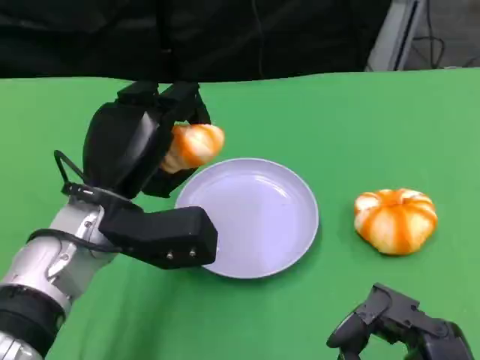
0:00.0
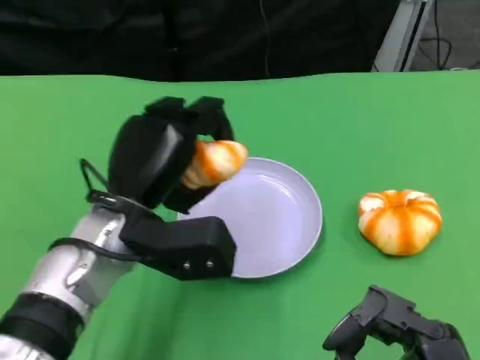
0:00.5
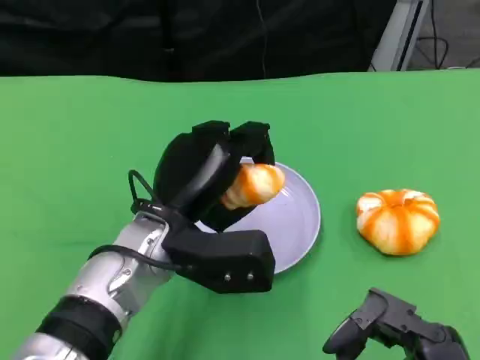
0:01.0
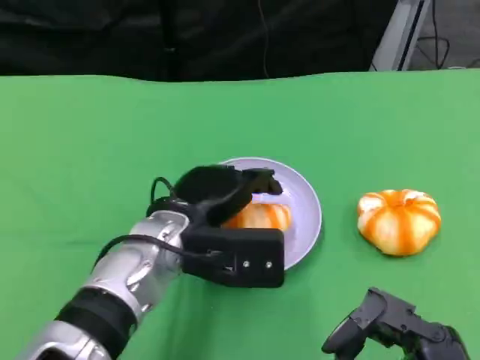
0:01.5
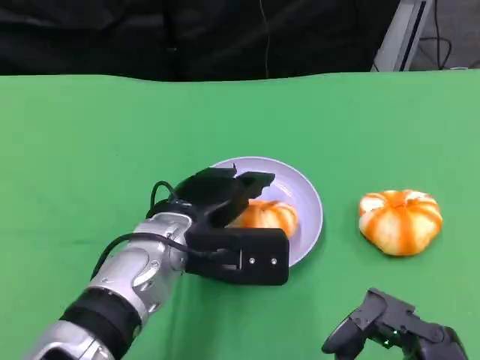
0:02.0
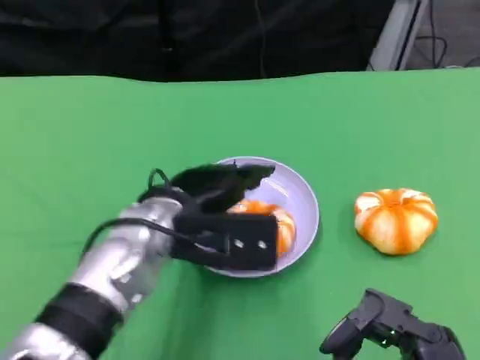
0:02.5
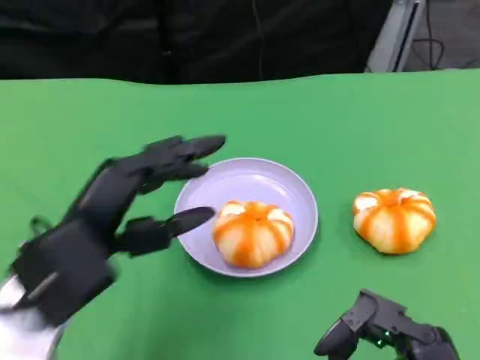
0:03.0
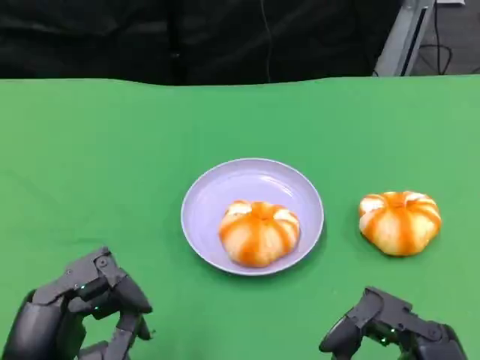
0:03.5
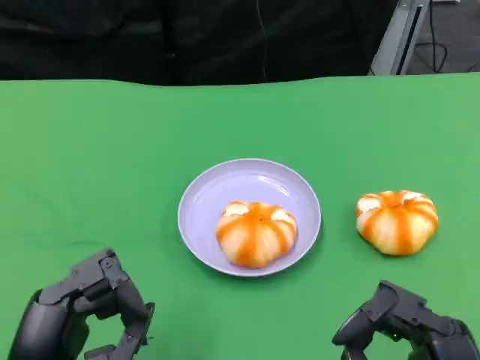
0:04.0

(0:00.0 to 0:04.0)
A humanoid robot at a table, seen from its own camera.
Task of the whole recording: Grasp the bread from the table and place it into the plate.
0:00.0 - 0:02.0: The left hand moves to the right, roughly 5 cm.
0:02.0 - 0:04.0: The left hand shifts roughly 20 cm backward and to the left.

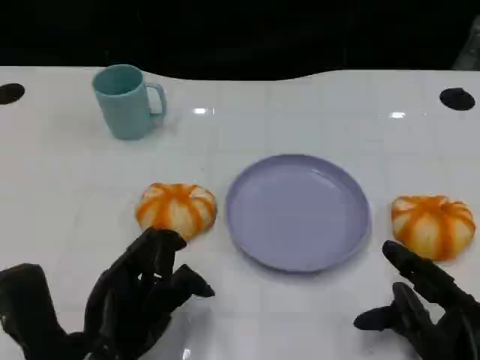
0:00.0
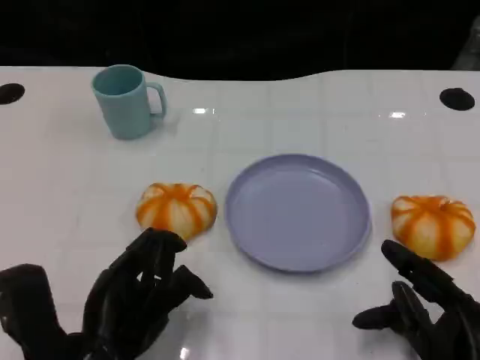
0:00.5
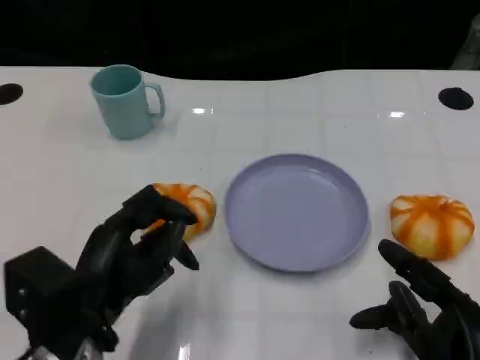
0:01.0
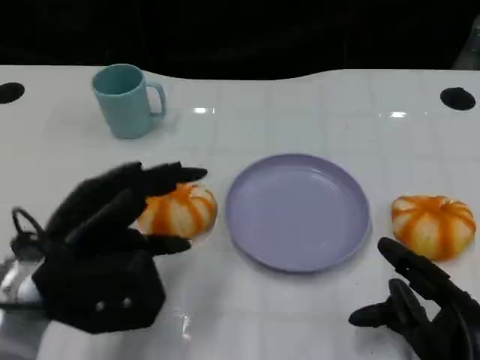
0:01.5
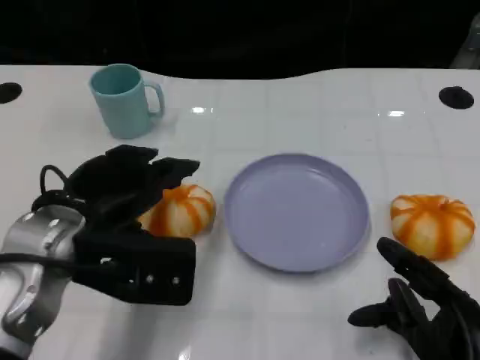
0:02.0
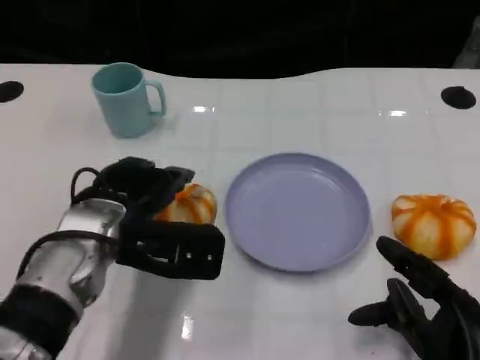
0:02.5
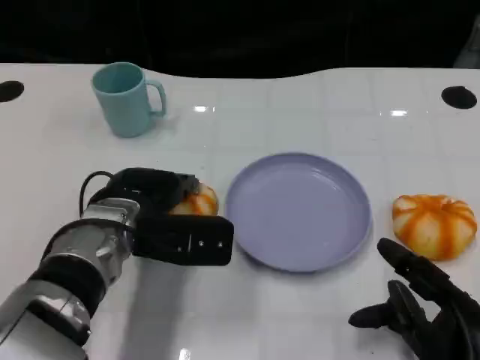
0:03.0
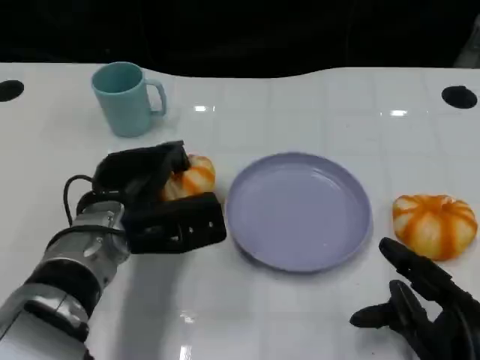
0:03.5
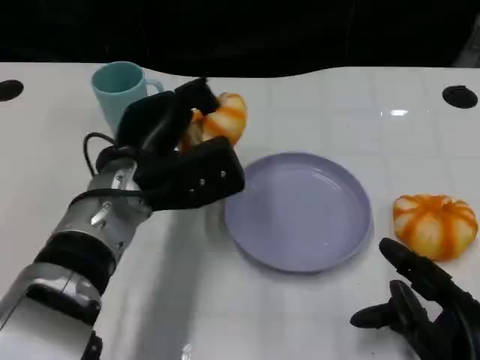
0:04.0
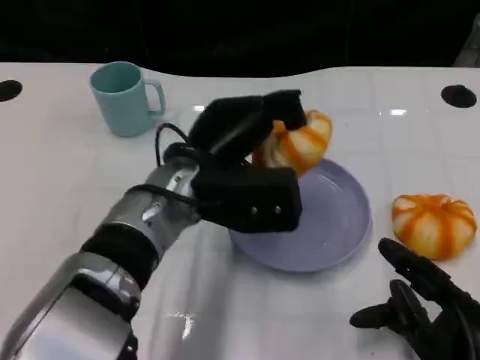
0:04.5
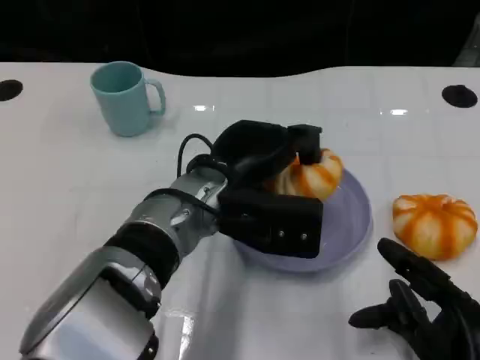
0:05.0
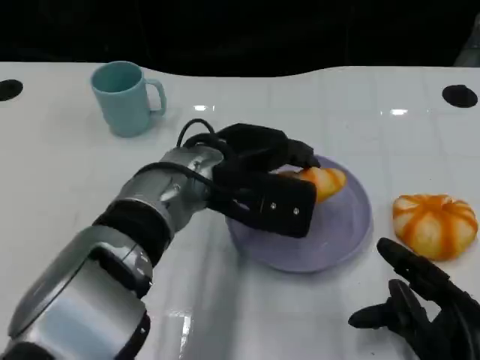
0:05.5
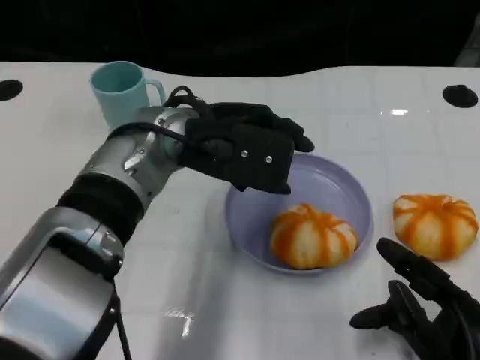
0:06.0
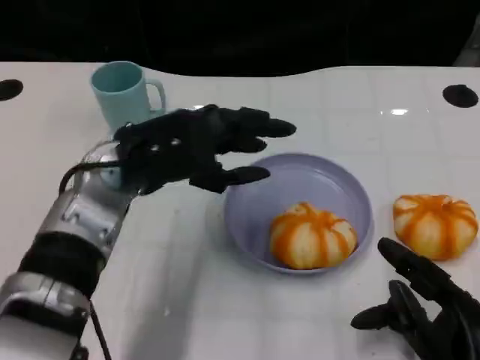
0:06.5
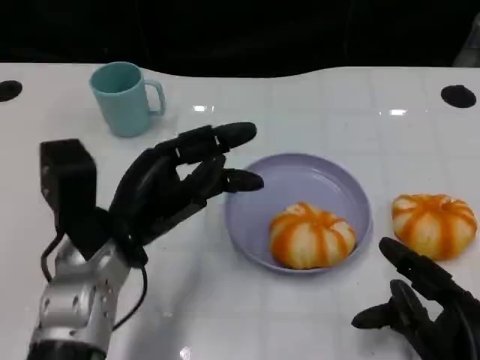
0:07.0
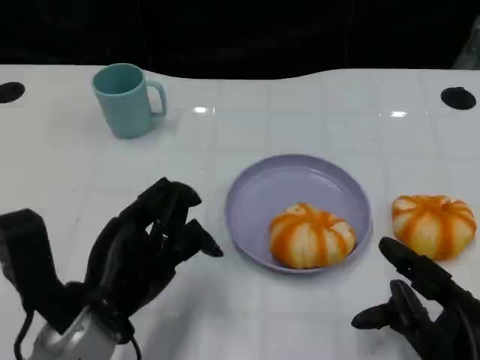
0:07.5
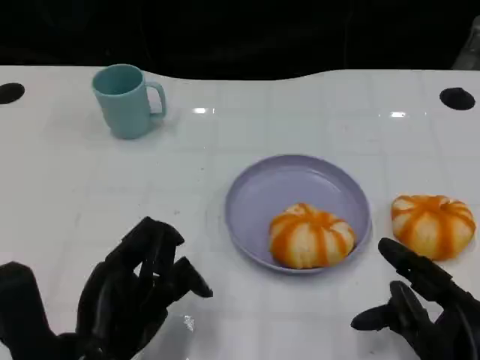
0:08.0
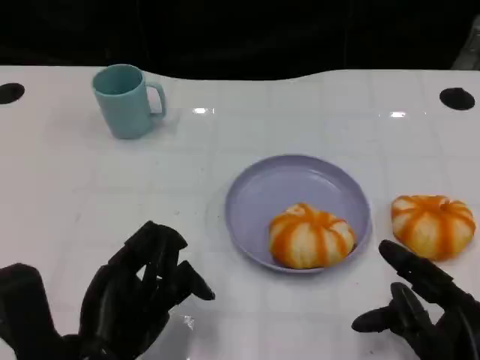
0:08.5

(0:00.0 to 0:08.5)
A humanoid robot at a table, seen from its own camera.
Task of the whole recording: Grasp the bread from the table and place it into the plate.
0:00.0 - 0:02.0: The left hand travels forward and upward by approximately 10 cm.
0:02.0 - 0:04.0: The left hand is displaced forward and to the right by approximately 10 cm.
0:04.0 - 0:06.5: The left hand moves about 5 cm to the right and comes back.
0:06.5 - 0:08.5: The left hand travels backward and downward by approximately 15 cm.

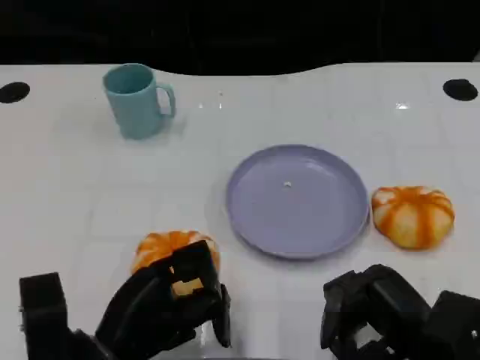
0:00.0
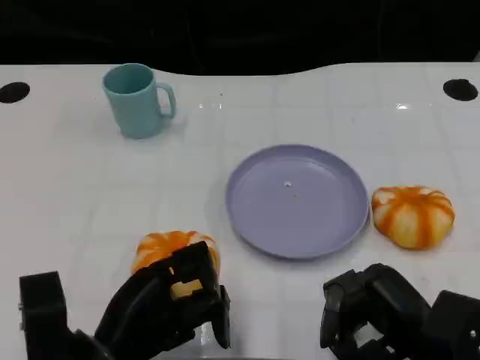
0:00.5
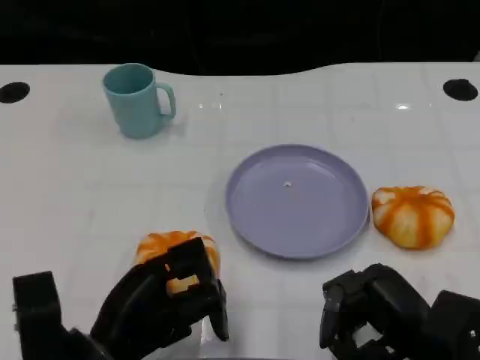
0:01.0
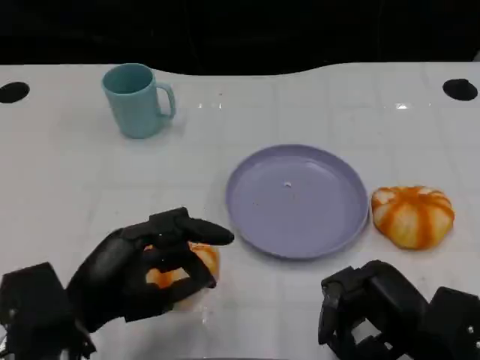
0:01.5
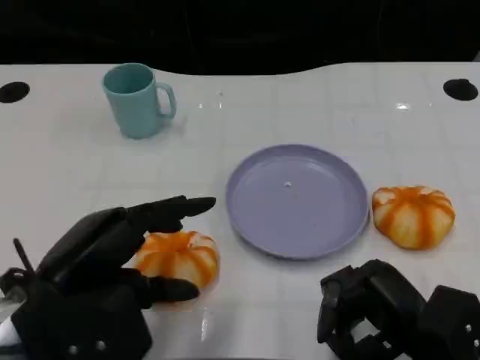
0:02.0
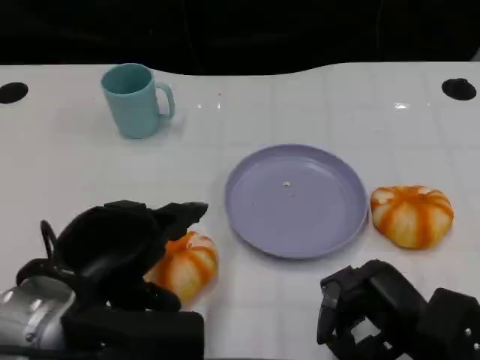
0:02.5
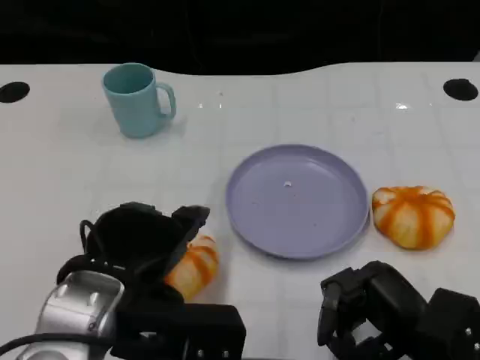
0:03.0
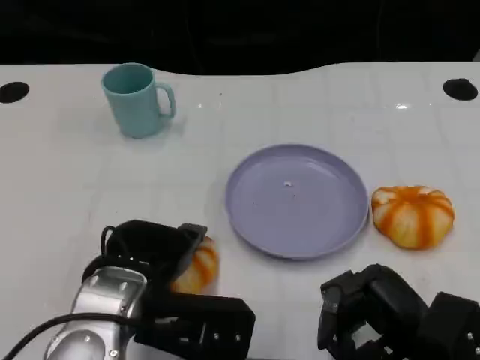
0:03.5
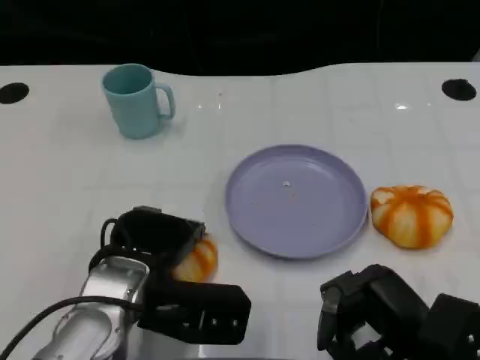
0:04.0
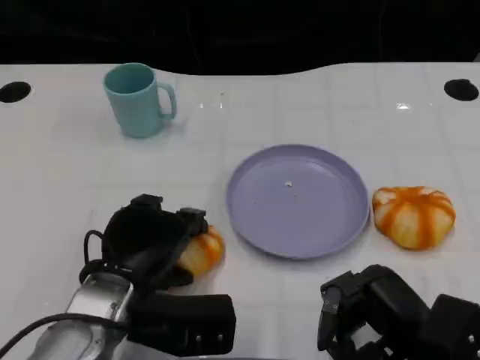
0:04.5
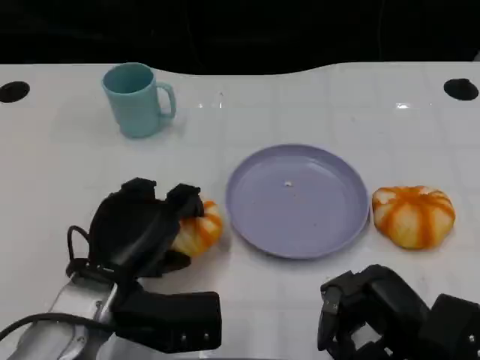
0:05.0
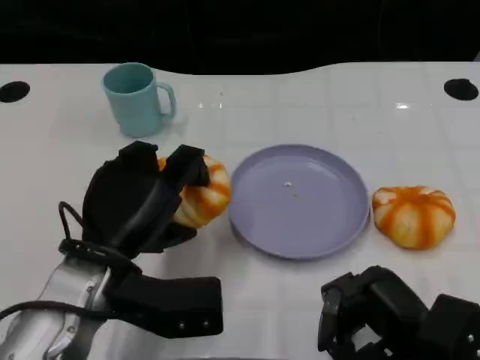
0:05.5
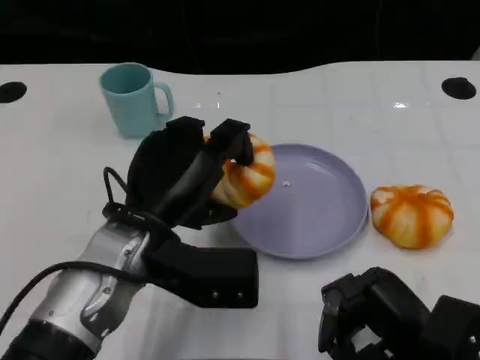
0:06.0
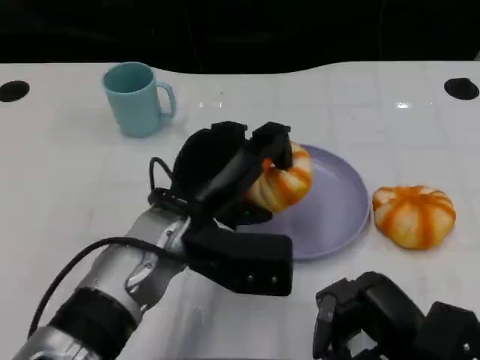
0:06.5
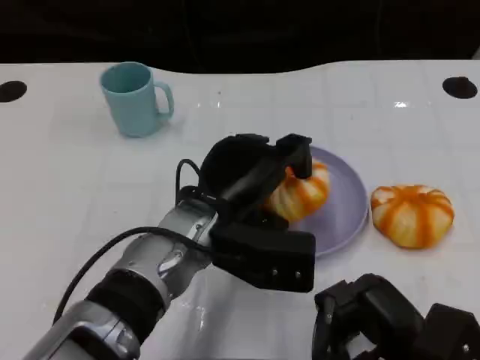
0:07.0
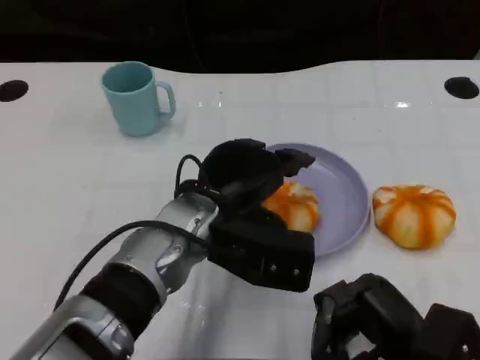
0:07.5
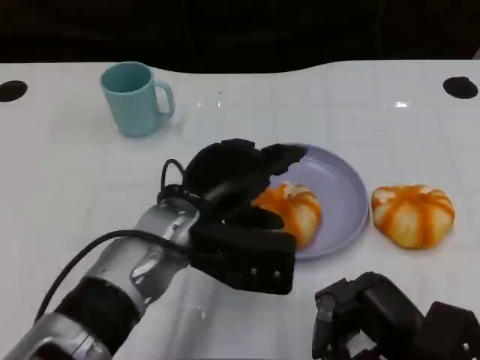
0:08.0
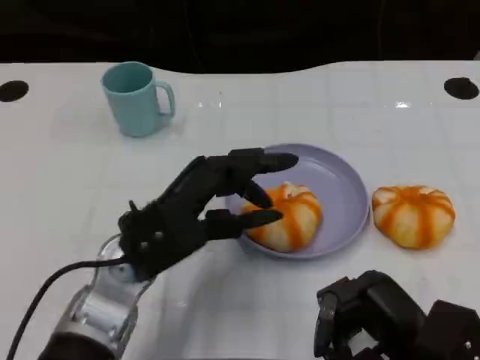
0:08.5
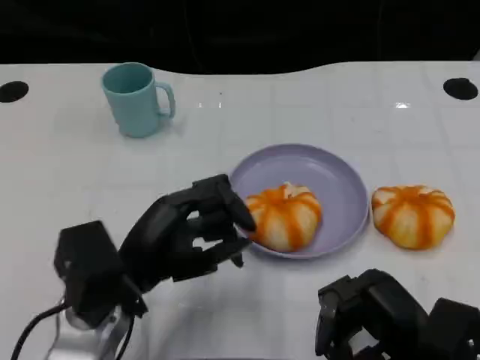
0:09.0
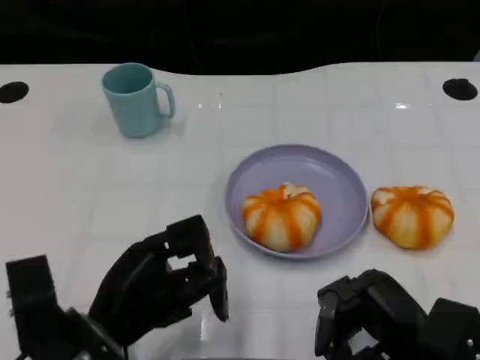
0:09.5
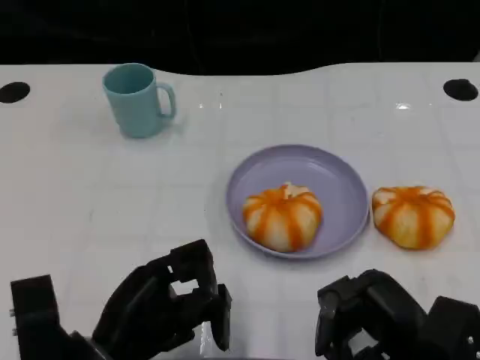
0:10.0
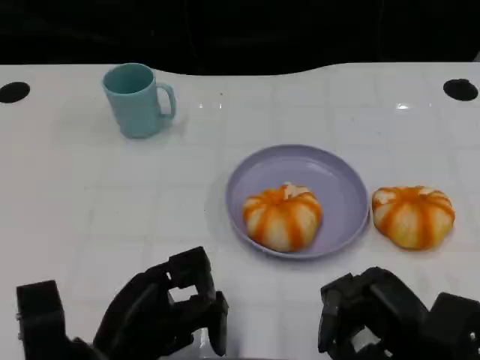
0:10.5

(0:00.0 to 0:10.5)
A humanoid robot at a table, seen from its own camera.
Task of the whole recording: Grasp the bread from the table and place it into the plate.
0:00.0 - 0:02.0: The left hand travels upward by some 10 cm.
0:02.0 - 0:04.0: The left hand goes about 10 cm to the right, downward and forward.
0:04.0 - 0:06.5: The left hand travels to the right by approximately 5 cm.
0:08.5 - 0:10.5: The left hand shifts some 10 cm backward, downward and to the left.

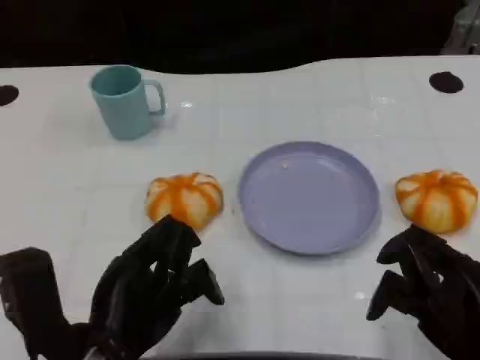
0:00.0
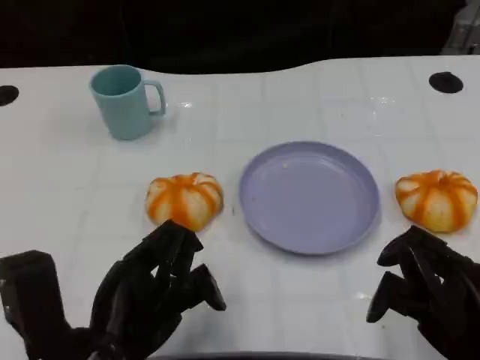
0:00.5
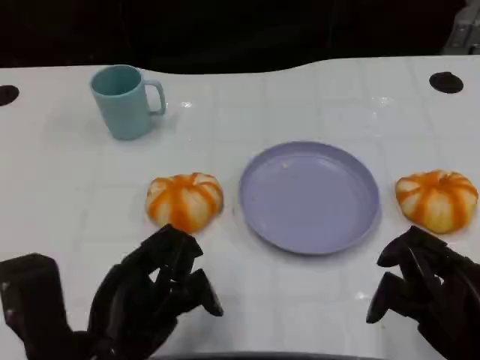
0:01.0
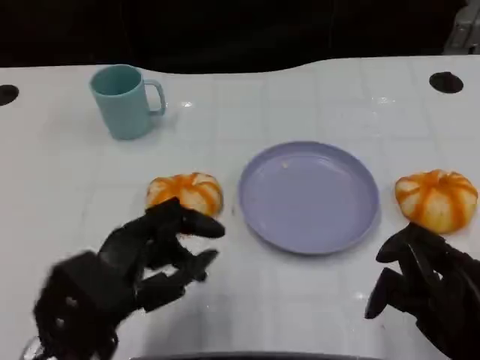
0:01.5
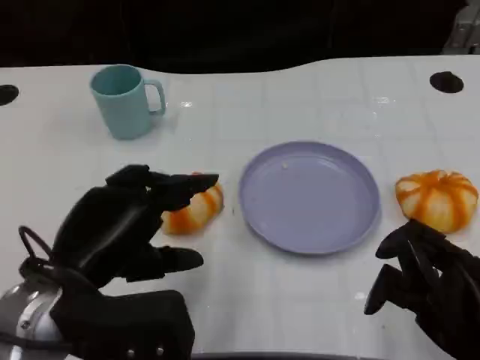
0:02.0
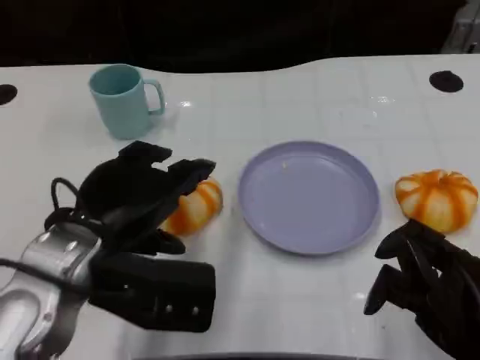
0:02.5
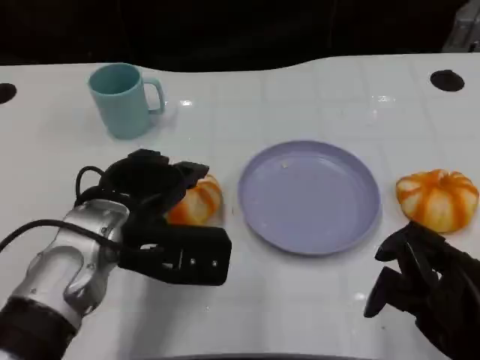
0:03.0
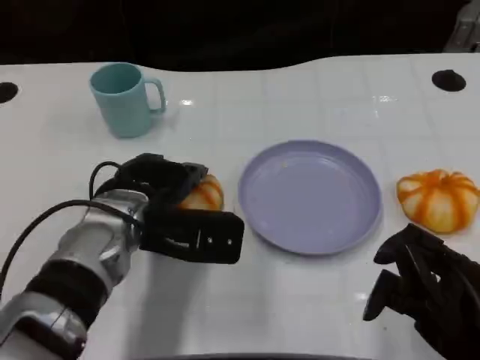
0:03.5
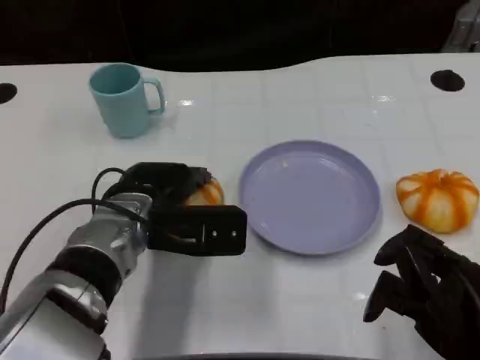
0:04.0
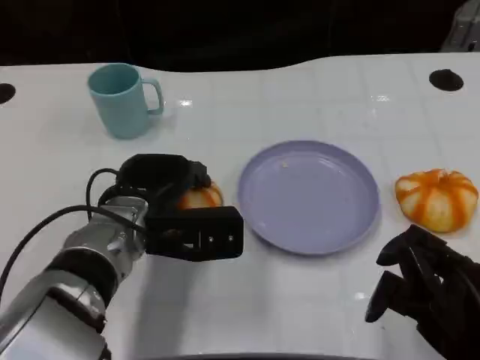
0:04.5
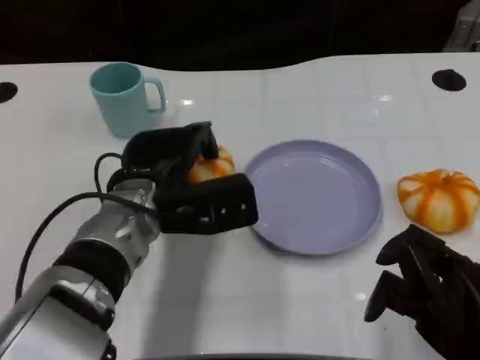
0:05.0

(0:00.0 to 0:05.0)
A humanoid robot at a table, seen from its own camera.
Task of the whole recording: Grasp the bread from the table and place it into the plate.
0:00.0 - 0:02.5: The left hand travels forward and upward by roughly 10 cm.
0:02.5 - 0:05.0: The left hand travels forward and to the right by some 10 cm.
